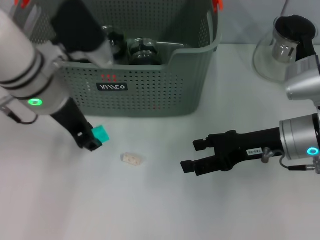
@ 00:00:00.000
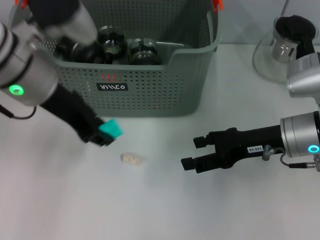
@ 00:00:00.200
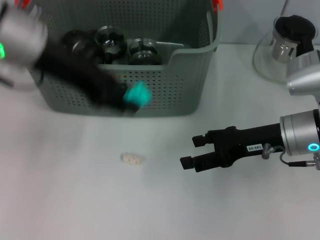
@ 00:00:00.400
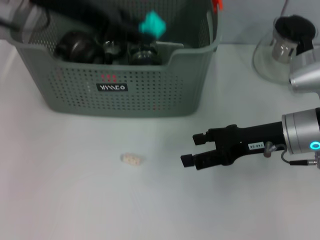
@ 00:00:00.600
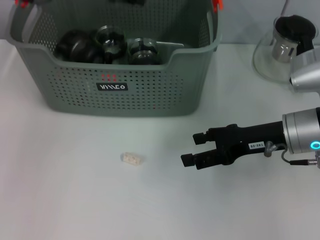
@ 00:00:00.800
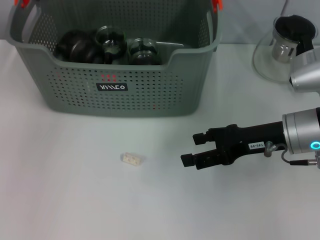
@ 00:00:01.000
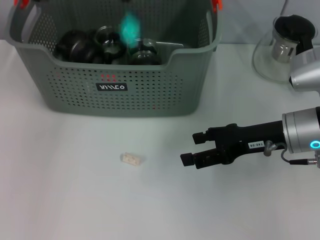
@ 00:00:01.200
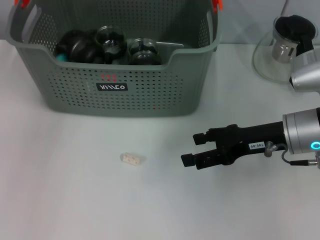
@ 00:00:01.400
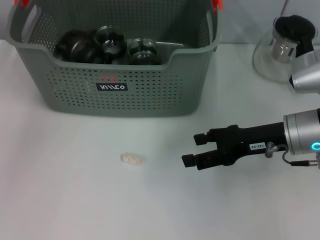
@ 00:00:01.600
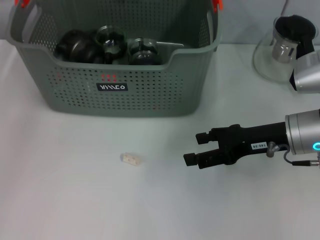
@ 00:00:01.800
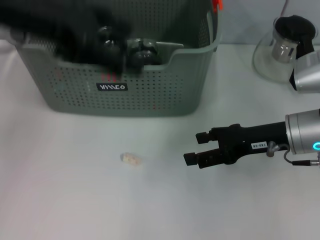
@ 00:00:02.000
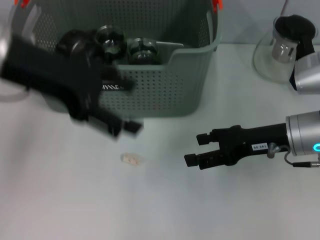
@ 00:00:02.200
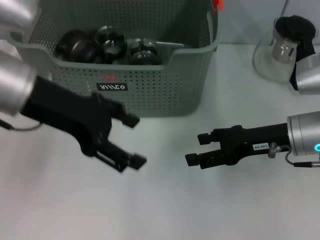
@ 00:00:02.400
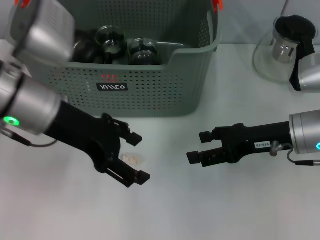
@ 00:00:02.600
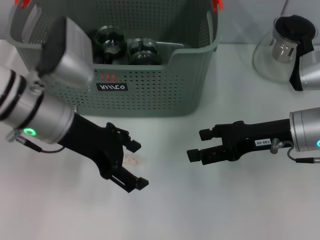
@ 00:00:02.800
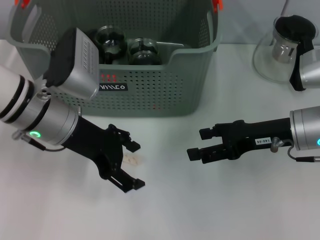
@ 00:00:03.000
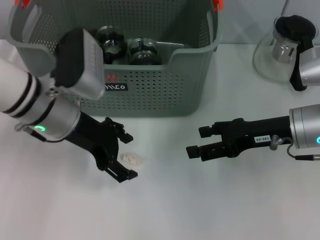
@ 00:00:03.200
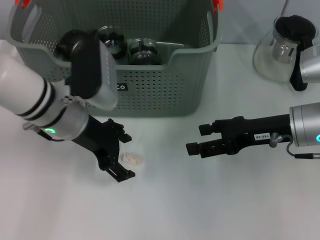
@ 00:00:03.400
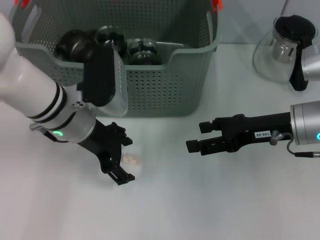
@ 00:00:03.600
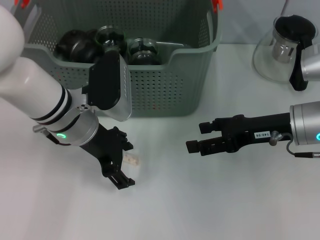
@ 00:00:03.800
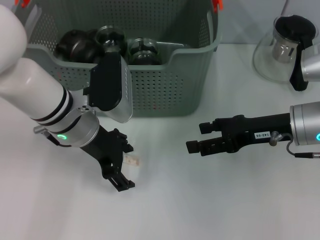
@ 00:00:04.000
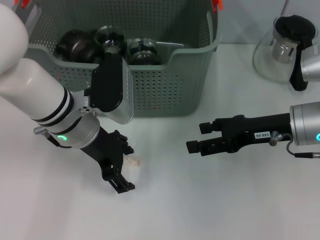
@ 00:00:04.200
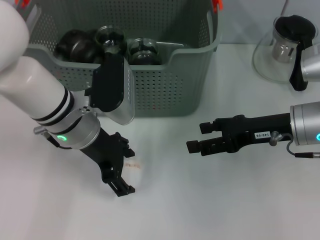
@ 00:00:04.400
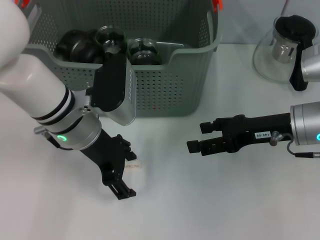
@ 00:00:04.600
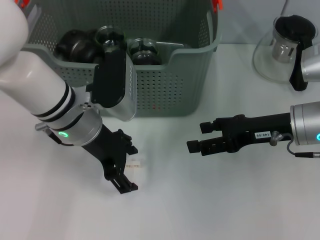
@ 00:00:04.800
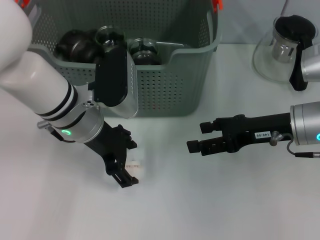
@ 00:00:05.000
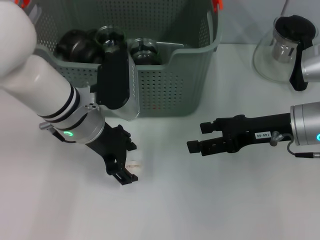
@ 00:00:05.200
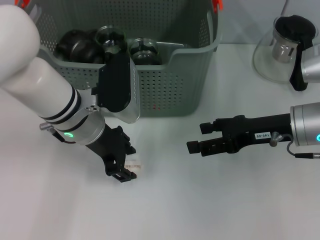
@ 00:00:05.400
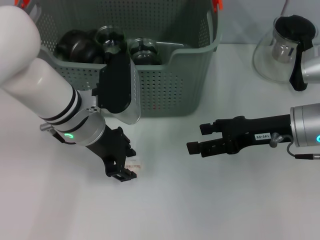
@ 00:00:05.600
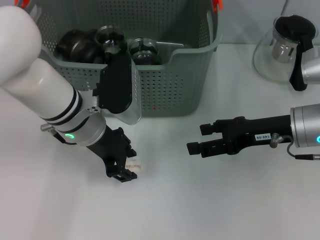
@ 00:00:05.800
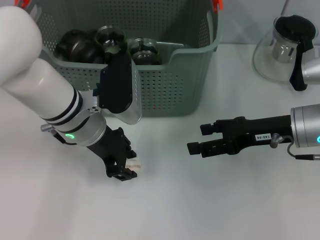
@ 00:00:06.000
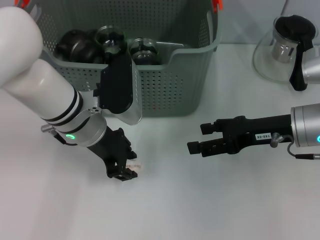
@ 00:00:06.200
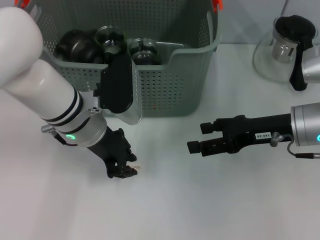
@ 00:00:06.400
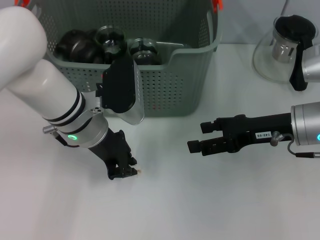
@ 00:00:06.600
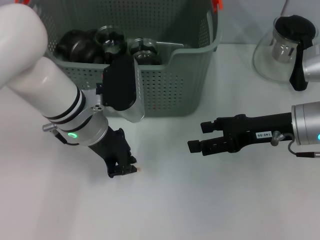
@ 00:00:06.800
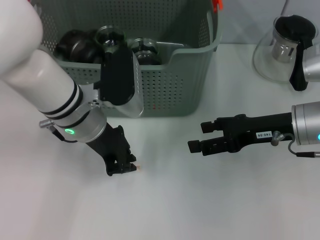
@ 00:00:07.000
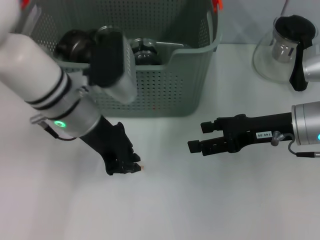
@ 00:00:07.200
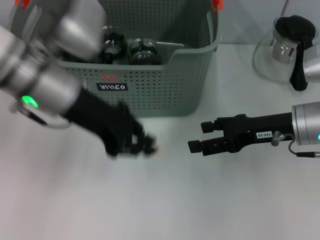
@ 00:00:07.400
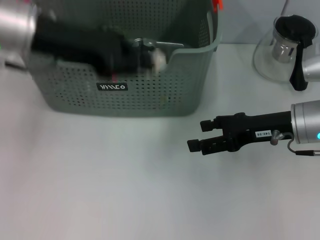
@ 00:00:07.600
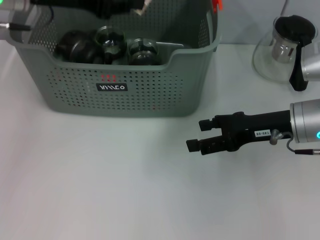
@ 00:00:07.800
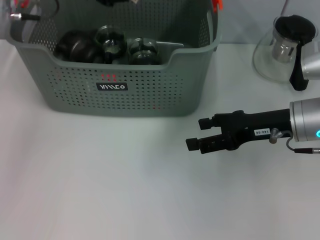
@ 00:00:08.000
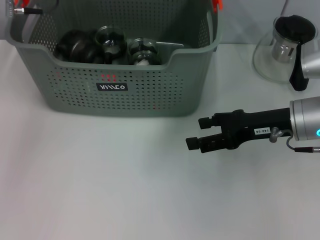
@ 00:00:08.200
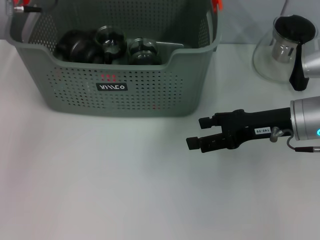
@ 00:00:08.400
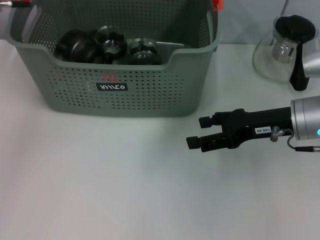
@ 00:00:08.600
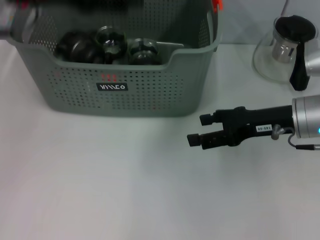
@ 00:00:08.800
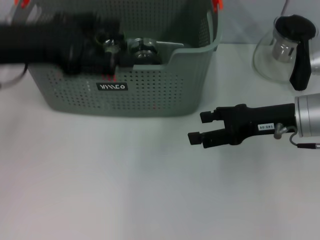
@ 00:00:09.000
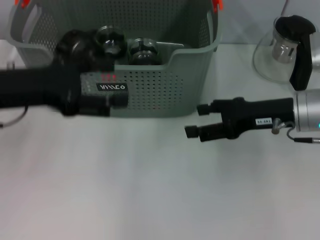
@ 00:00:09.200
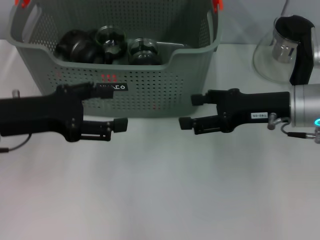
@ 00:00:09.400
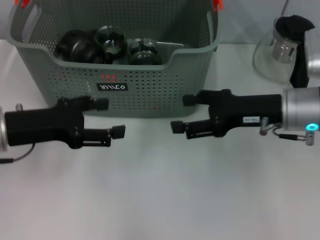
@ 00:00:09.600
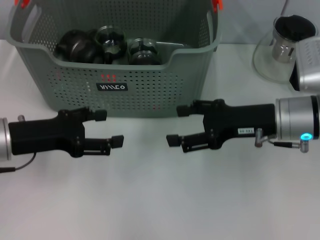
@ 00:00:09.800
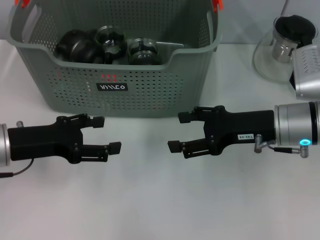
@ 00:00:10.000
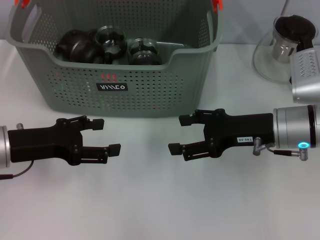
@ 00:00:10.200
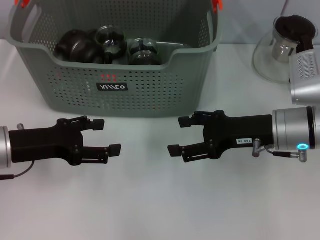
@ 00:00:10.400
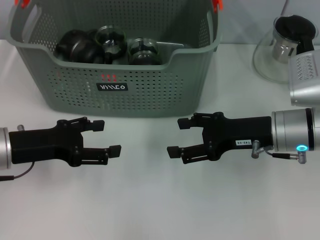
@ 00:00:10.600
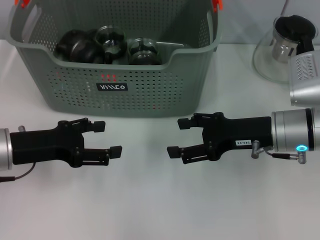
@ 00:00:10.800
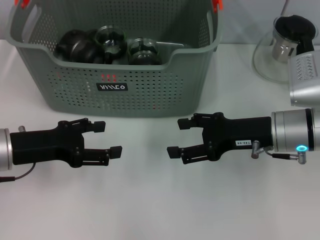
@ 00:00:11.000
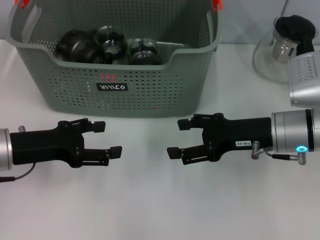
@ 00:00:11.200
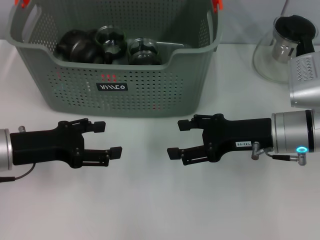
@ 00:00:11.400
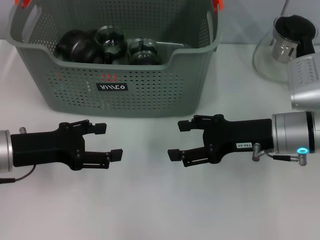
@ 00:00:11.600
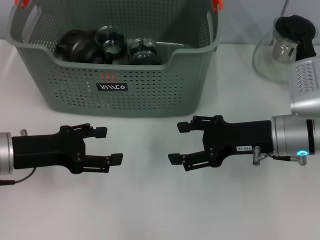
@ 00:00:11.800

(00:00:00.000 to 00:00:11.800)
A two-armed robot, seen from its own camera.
Task of the whole recording: pick up the teacup on the table and place it into the storage bin, pick up the block on the table and place it into the storage bin.
Step, 00:00:00.000 - 00:00:01.600: Place the cup in the storage box with left gripper.
Step, 00:00:01.800 - 00:00:06.600: Grasp the white block with left gripper.
Step, 00:00:06.800 - 00:00:08.200: Place the white block in the storage box with left gripper.
00:00:00.000 - 00:00:01.400: The left gripper shifts some 15 cm forward and upward.
00:00:01.400 - 00:00:03.000: The left gripper moves backward and downward, about 20 cm.
00:00:04.400 - 00:00:06.000: The left gripper closes.
00:00:06.000 - 00:00:07.400: The left gripper heads upward, covering roughly 10 cm, and closes its fingers.
00:00:07.400 - 00:00:08.800: The left gripper goes approximately 10 cm to the left and upward, goes forward and returns, about 10 cm each way, and opens its fingers.
00:00:08.800 - 00:00:10.400: The left gripper moves downward and backward, some 20 cm.
00:00:10.400 - 00:00:11.800: Both grippers stay put.
